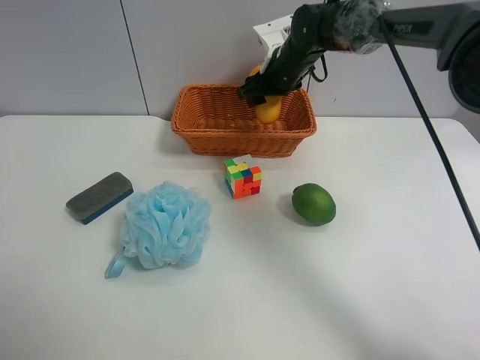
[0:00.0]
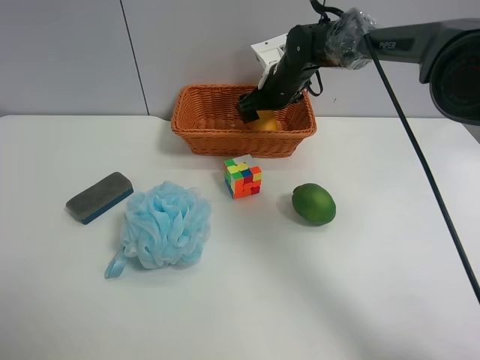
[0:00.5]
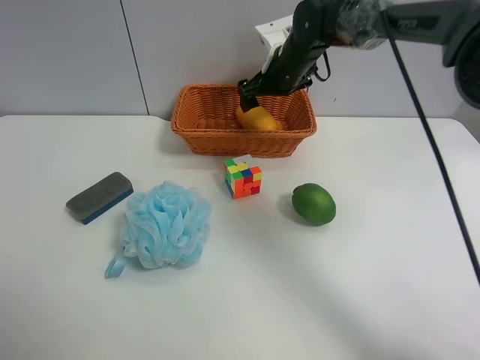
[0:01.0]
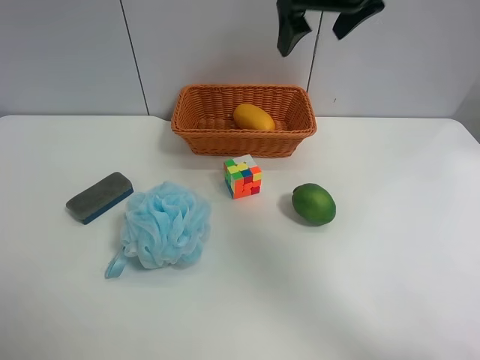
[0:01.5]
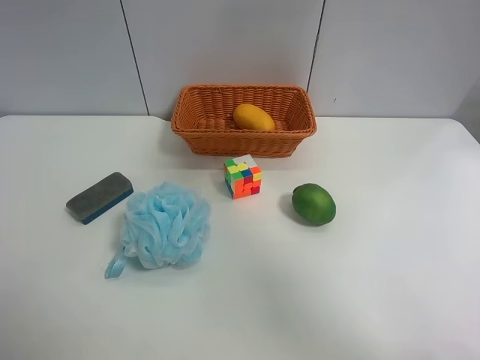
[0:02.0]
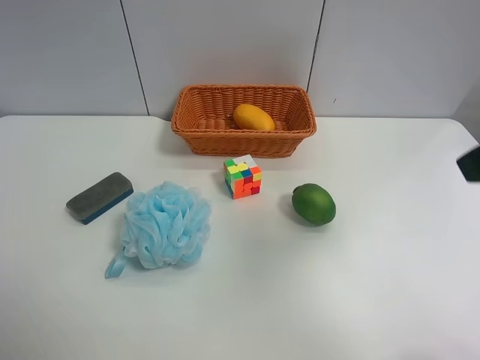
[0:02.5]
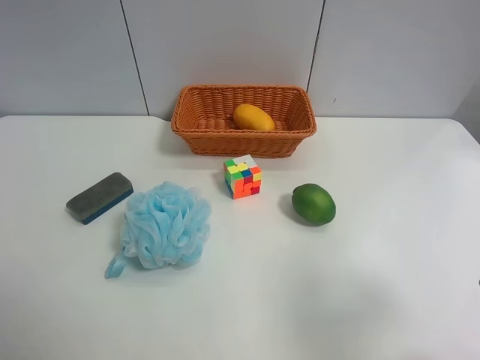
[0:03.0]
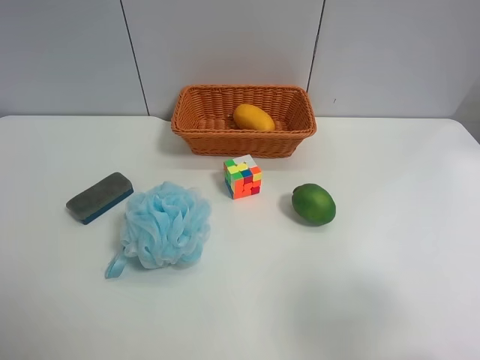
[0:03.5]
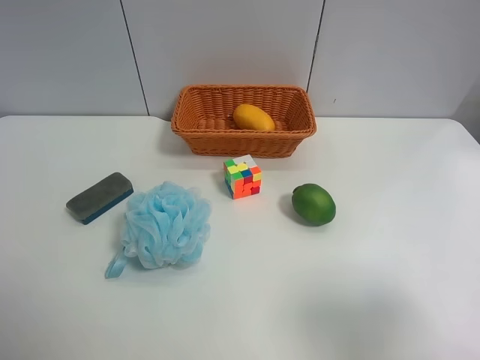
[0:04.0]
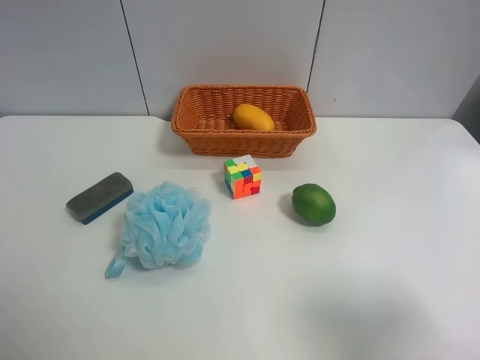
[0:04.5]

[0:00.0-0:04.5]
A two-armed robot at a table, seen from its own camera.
Task of the whole recording: Randomly grab green lemon or mangoes from the table and put them in a basket.
0:00.0 to 0:02.0: The right gripper moves upward and backward, approximately 35 cm, and opens up.
0:02.0 to 0:04.5: The right gripper moves backward and downward, approximately 30 cm.
